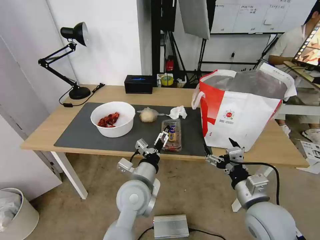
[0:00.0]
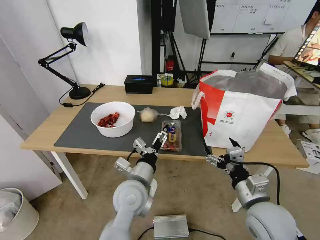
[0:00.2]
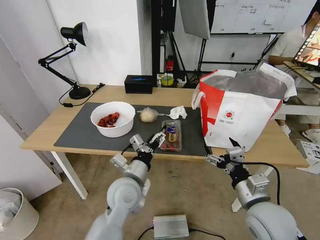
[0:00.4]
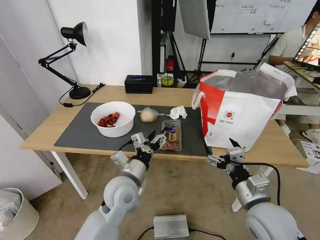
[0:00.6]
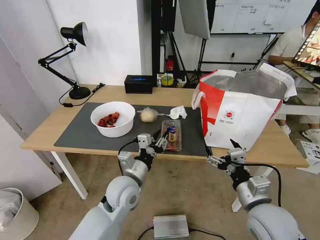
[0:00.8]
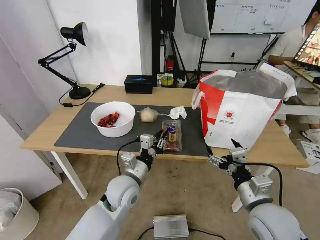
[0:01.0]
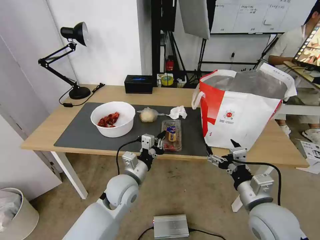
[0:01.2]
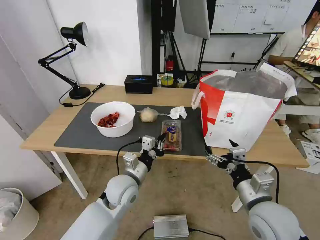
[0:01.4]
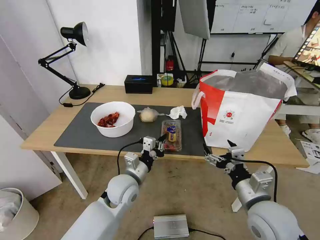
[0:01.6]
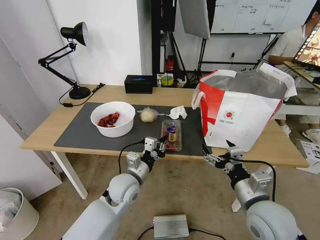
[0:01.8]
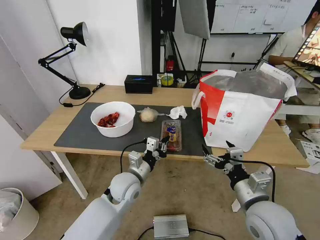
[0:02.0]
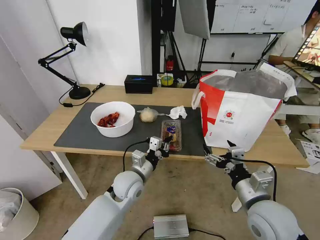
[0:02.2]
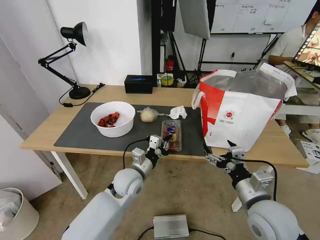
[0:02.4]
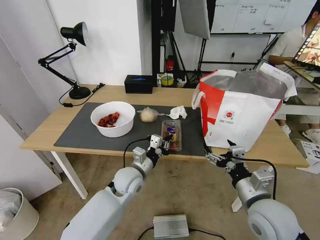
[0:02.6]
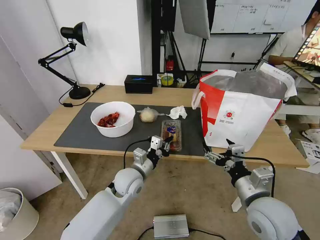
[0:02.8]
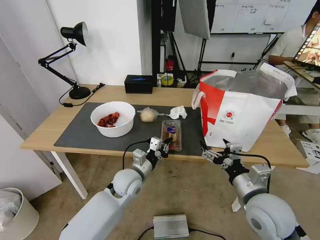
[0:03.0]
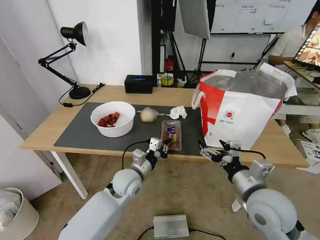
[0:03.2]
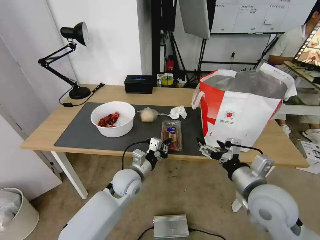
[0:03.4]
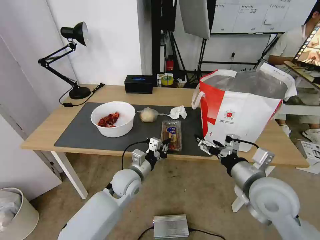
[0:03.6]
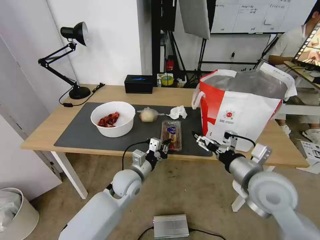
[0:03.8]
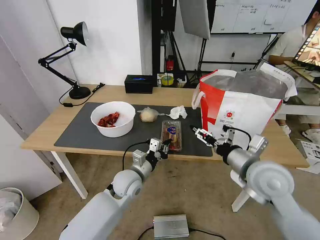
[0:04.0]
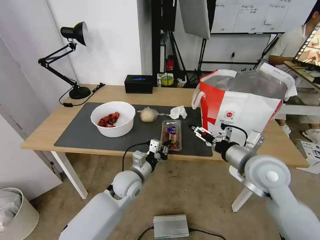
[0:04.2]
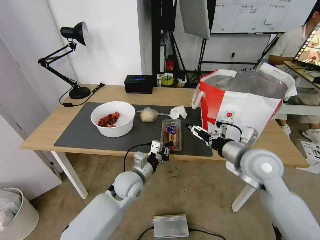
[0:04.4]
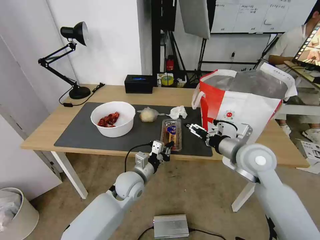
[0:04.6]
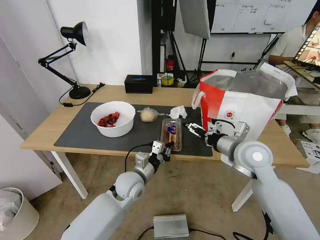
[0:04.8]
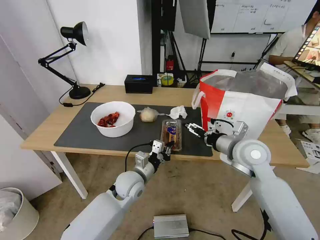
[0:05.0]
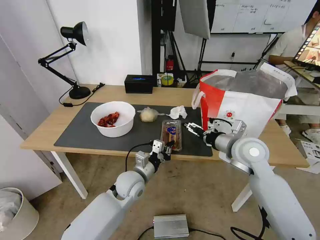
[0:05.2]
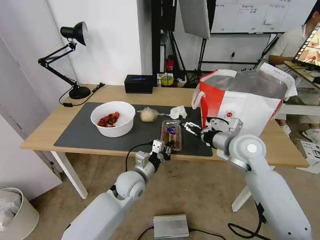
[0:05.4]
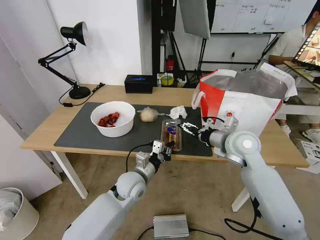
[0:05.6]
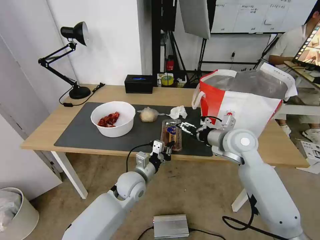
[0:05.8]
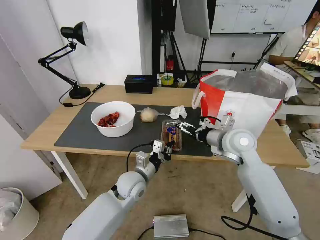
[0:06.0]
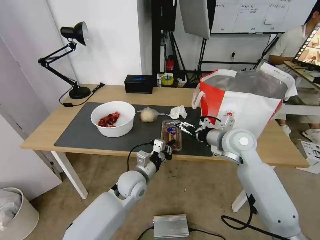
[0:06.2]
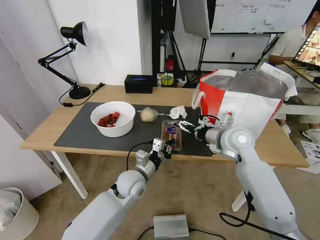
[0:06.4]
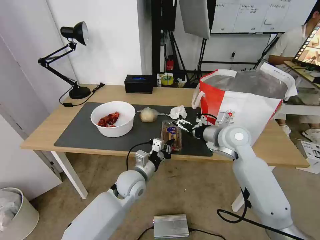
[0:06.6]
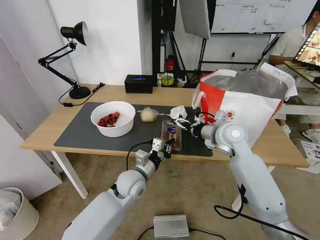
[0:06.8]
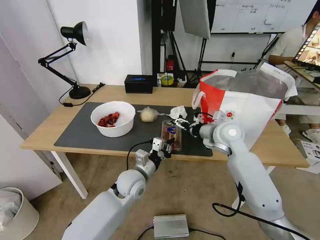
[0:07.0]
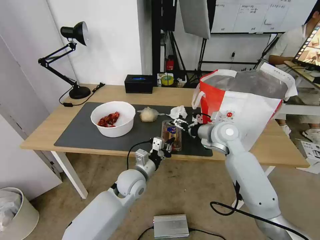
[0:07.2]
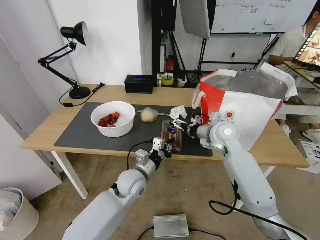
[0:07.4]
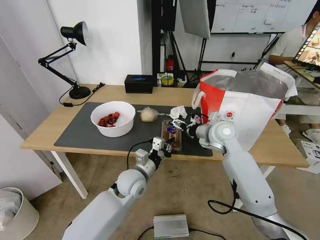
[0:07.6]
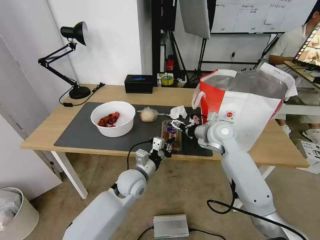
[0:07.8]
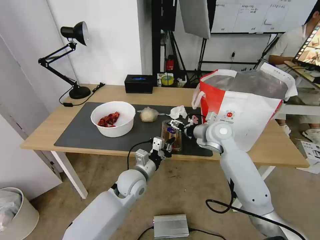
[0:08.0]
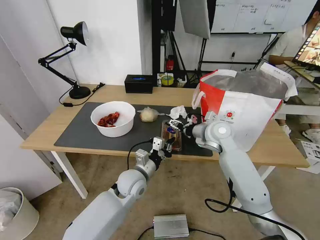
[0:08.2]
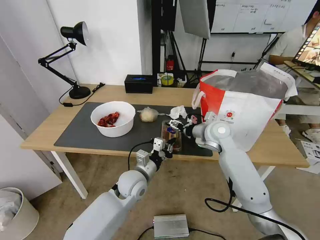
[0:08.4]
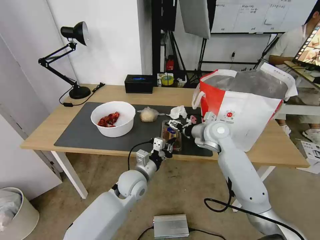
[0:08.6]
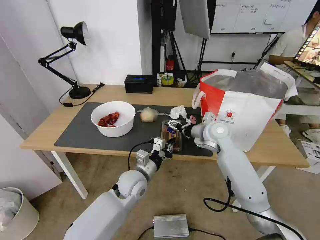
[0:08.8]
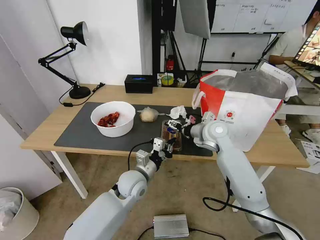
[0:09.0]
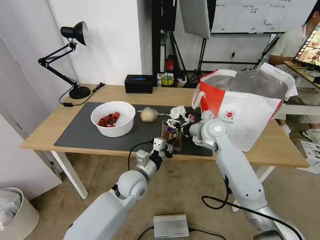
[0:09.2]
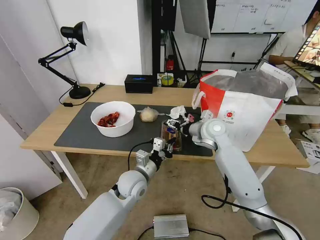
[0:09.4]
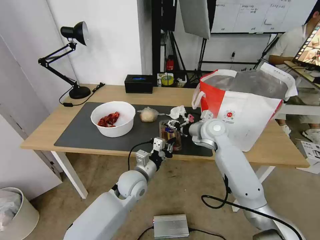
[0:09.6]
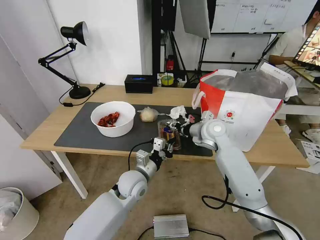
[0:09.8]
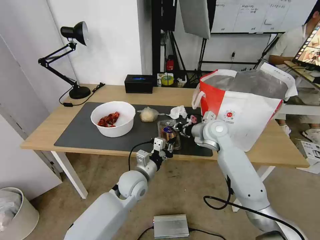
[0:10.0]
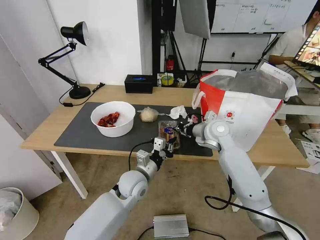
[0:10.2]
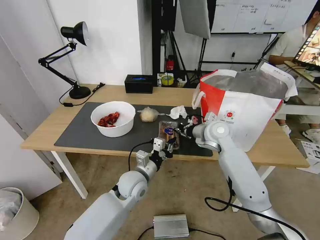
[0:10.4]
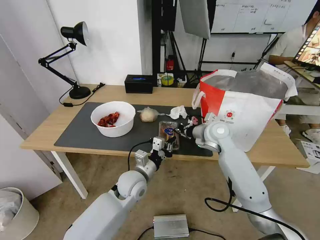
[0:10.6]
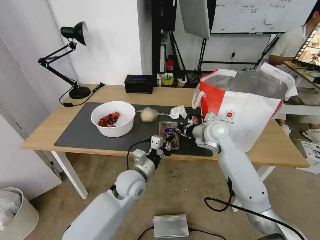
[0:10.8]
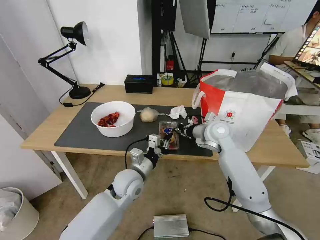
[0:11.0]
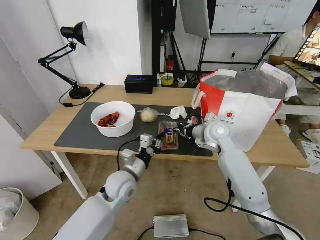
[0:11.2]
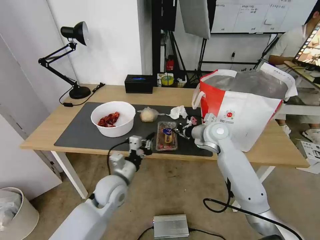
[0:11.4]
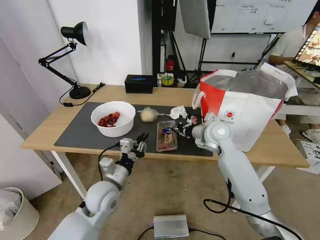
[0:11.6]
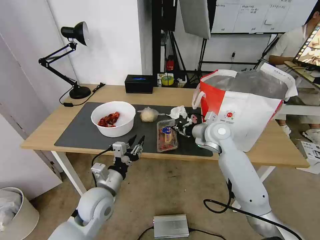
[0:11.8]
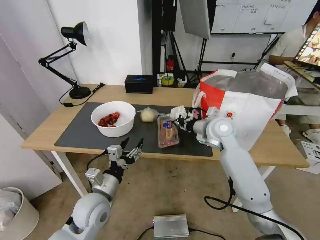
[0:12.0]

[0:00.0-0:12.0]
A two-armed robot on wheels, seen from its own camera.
Task of the whole recording: Pick up the trash from the table and place it into the takeout bag.
0:00.0 to 0:01.6: The left gripper changes place by some 10 cm, and closes up.
0:01.6 to 0:03.0: The grippers make only small movements.
0:03.0 to 0:04.4: The right gripper shifts approximately 10 cm forward and upward.
0:04.4 to 0:06.0: The right gripper heads forward, covering some 10 cm.
0:06.0 to 0:07.6: The right gripper heads forward, covering roughly 5 cm.
0:07.6 to 0:09.0: The grippers move only a little.
0:09.0 to 0:10.4: The right gripper closes up.
0:10.4 to 0:12.0: The left gripper travels to the left and backward by some 15 cm, and opens up.

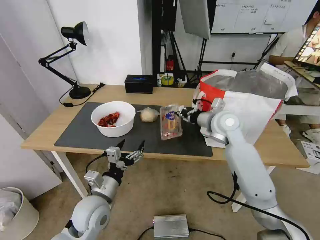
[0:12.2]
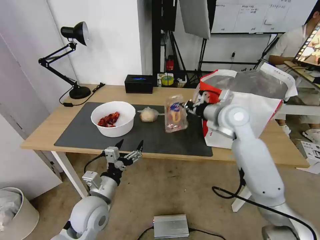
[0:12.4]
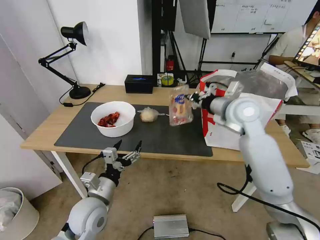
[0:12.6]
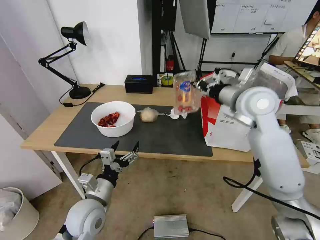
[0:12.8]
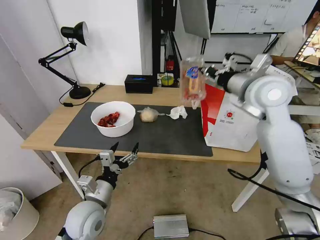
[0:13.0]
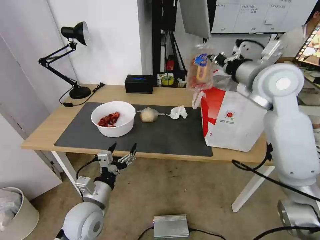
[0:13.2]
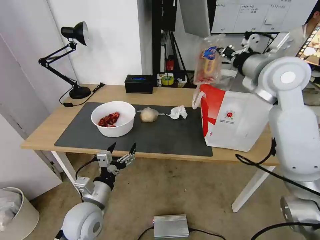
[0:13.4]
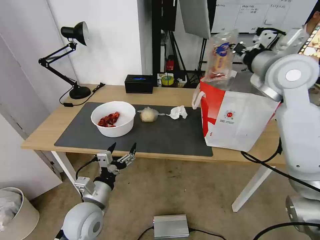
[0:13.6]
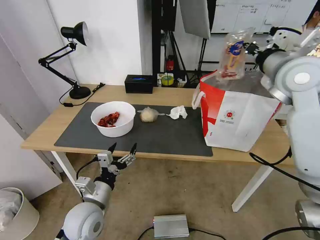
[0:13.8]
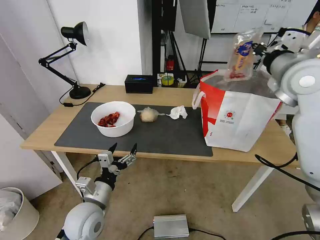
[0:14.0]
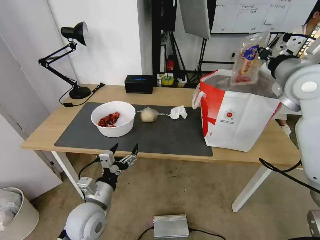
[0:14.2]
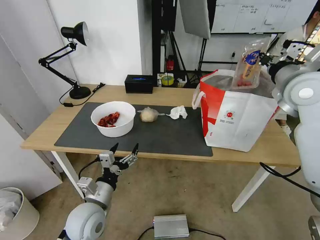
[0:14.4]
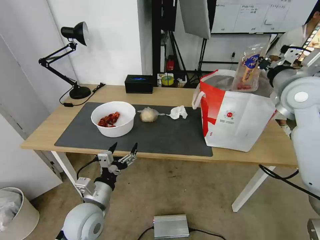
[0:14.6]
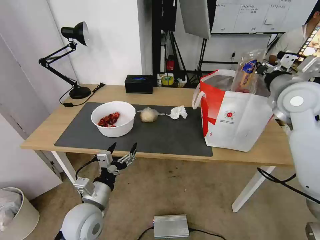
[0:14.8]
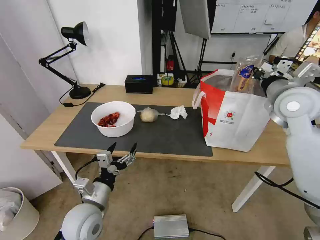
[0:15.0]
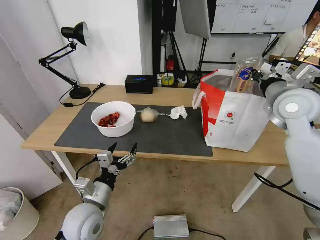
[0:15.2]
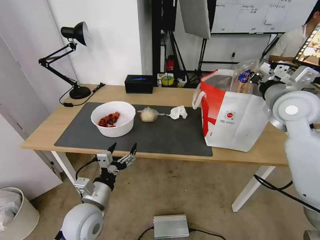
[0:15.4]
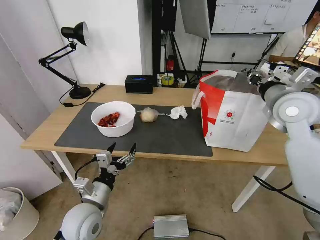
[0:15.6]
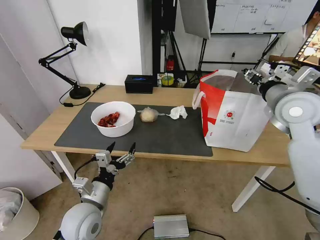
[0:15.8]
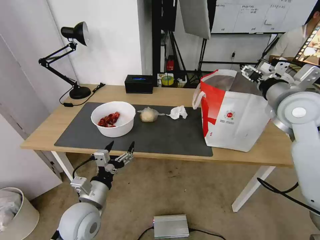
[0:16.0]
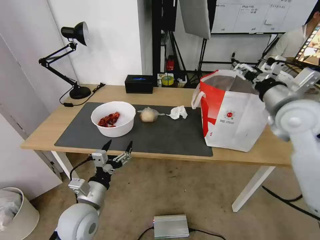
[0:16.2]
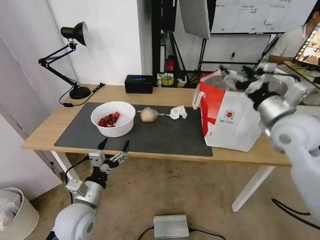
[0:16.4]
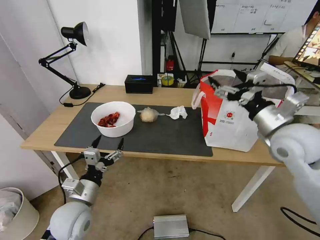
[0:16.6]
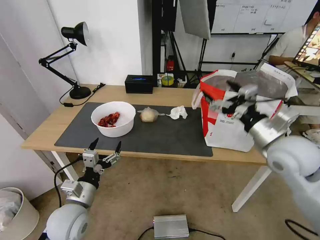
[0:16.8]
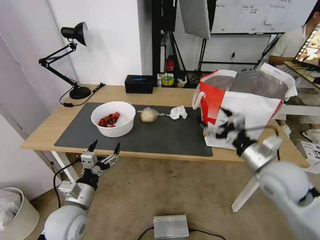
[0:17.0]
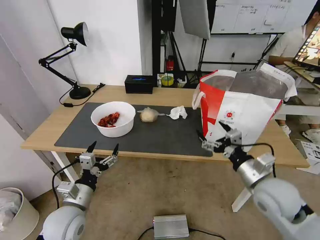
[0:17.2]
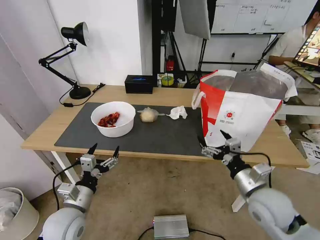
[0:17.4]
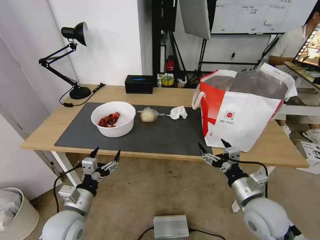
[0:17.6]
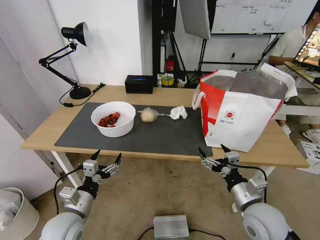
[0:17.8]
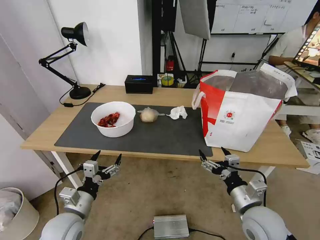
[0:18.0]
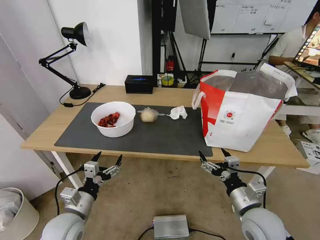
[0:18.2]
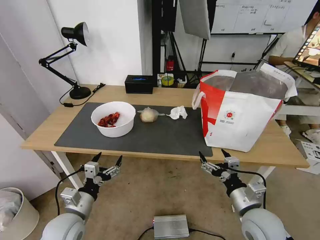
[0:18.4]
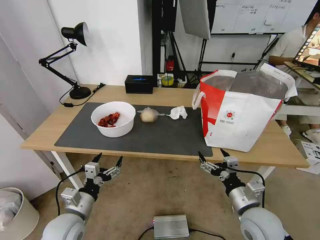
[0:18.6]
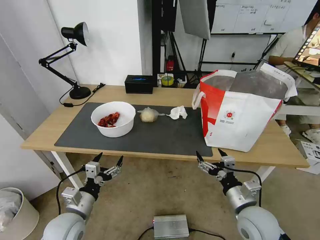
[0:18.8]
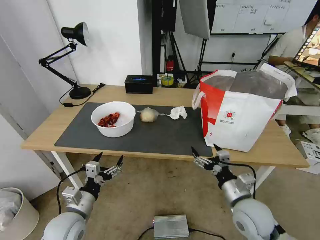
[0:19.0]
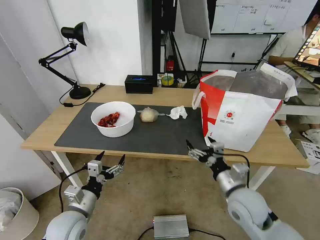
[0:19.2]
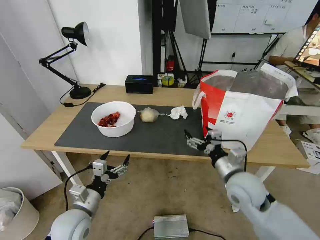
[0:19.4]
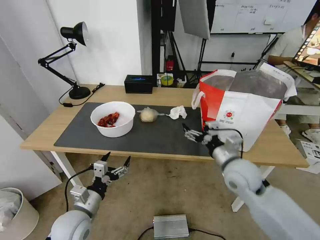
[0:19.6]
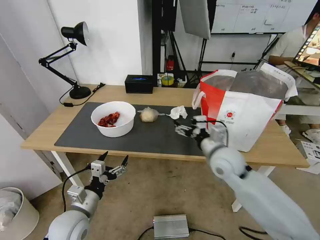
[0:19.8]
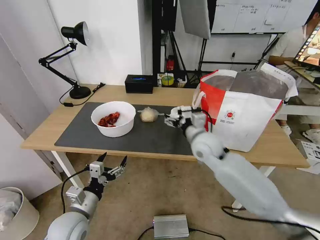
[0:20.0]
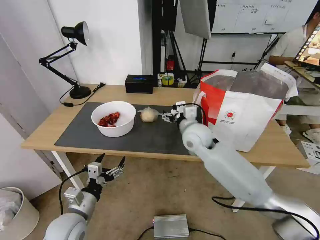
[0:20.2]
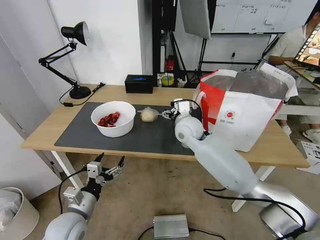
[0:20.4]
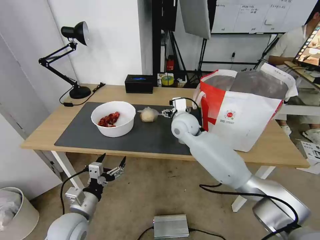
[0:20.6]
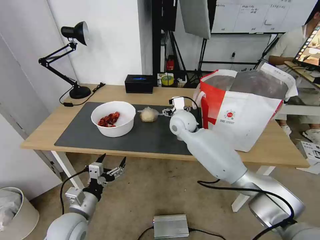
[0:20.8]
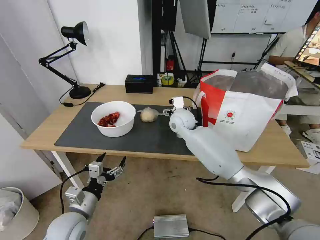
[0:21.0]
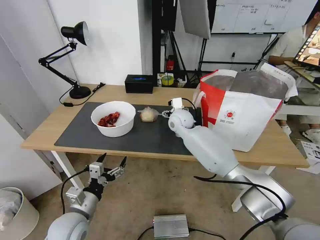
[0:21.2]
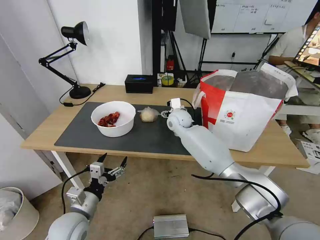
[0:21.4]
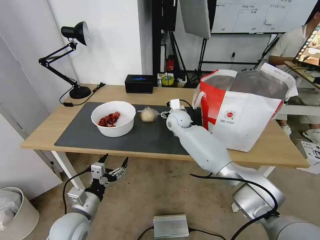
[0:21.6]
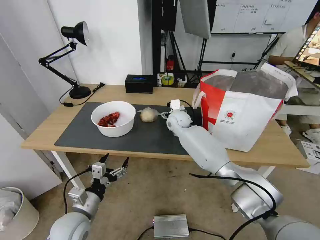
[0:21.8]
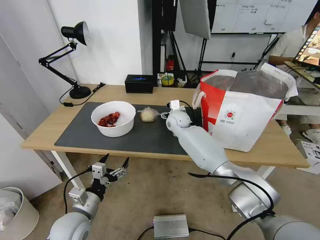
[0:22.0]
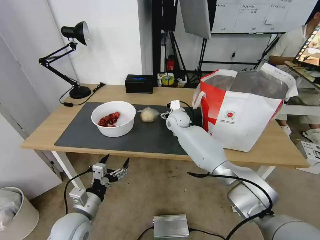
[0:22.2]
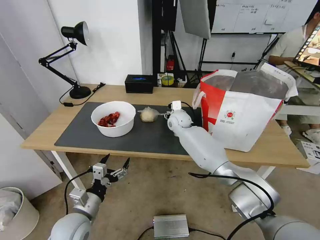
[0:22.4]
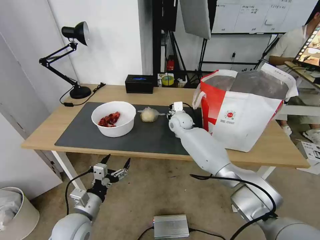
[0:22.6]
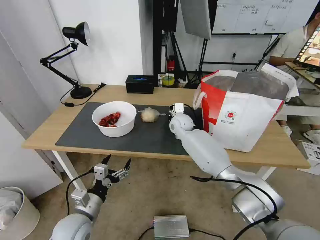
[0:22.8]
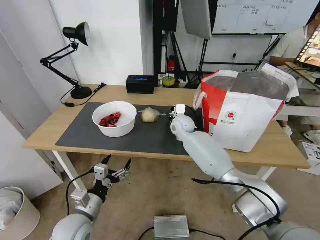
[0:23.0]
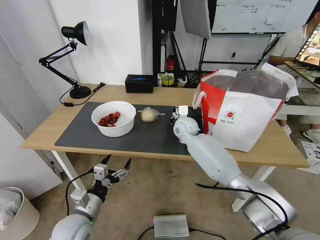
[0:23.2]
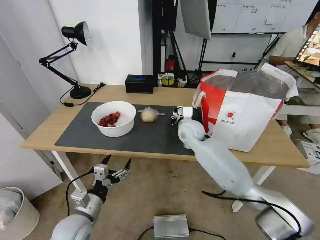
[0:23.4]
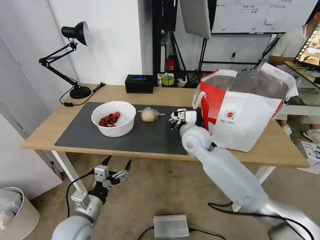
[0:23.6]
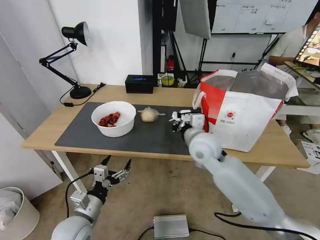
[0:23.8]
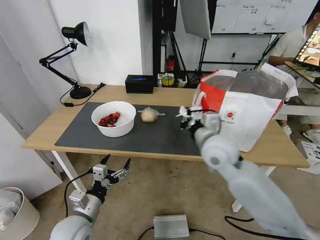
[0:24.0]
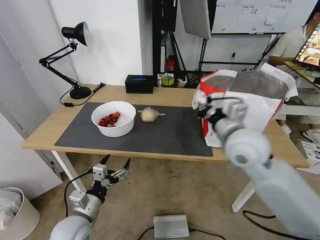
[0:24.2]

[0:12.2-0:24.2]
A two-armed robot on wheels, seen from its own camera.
Task of the whole recording: Pick up the trash from the table and place it into the takeout bag.
0:12.2 to 0:13.8: The right gripper travels upward and to the right by approximately 20 cm.
0:13.8 to 0:15.2: The right gripper heads downward, covering roughly 5 cm.
0:15.2 to 0:16.6: The right gripper travels backward by approximately 10 cm, and opens.
0:16.6 to 0:18.2: The right gripper goes some 25 cm downward and backward.
0:18.2 to 0:19.8: The right gripper is displaced forward, to the left and upward by approximately 20 cm.
0:19.8 to 0:21.2: The right gripper shifts some 20 cm forward and to the left.
0:21.2 to 0:22.6: The right gripper closes its fingers.
0:22.6 to 0:24.2: The right gripper moves backward, upward and to the right, some 30 cm, and closes its fingers.
